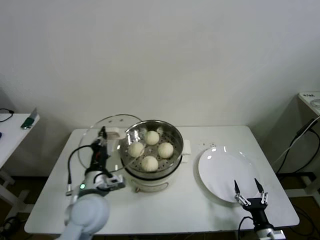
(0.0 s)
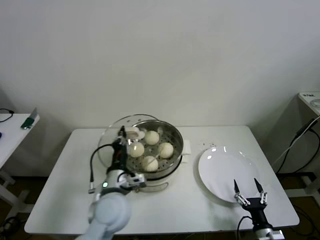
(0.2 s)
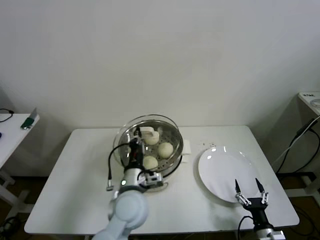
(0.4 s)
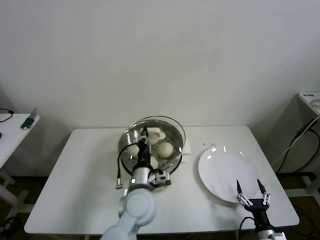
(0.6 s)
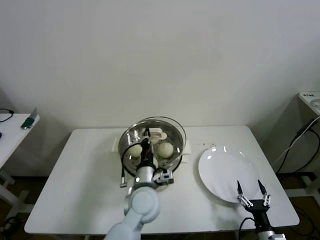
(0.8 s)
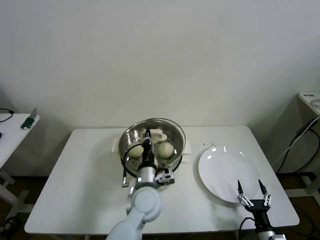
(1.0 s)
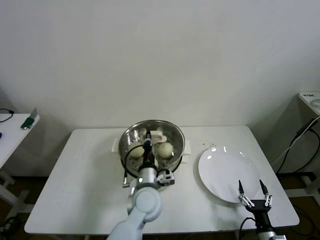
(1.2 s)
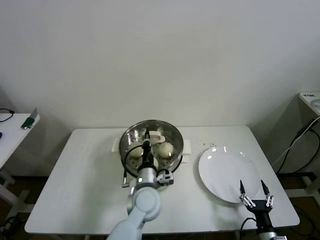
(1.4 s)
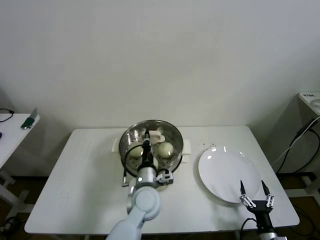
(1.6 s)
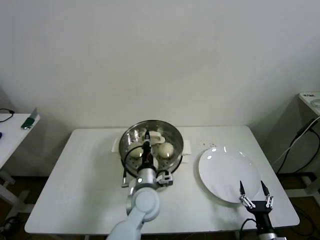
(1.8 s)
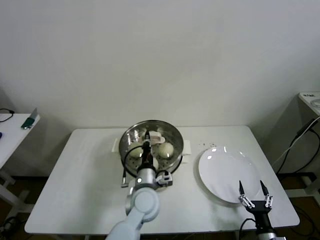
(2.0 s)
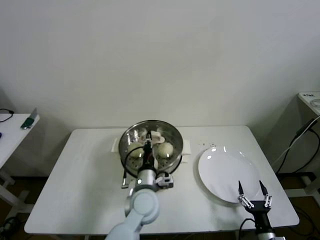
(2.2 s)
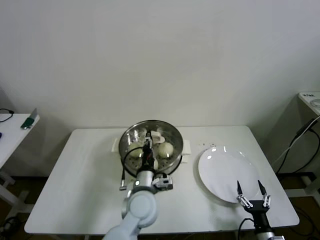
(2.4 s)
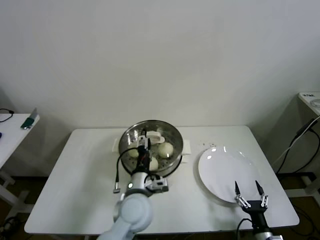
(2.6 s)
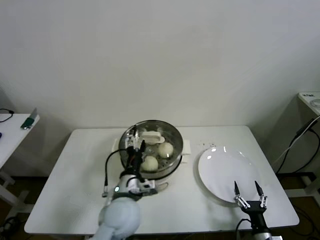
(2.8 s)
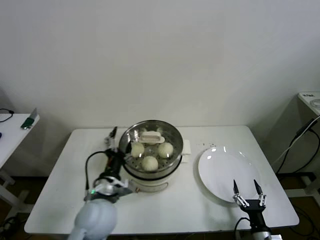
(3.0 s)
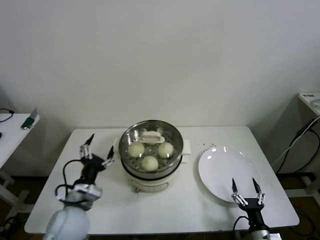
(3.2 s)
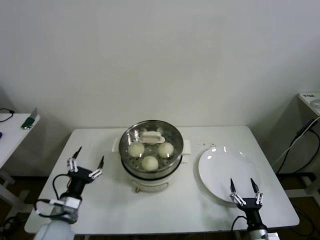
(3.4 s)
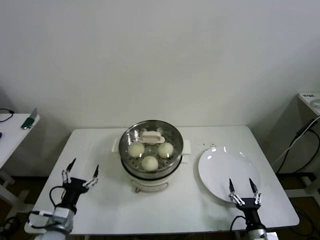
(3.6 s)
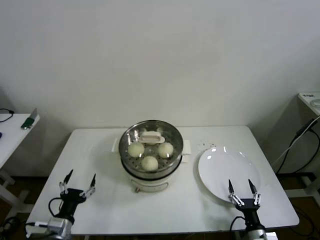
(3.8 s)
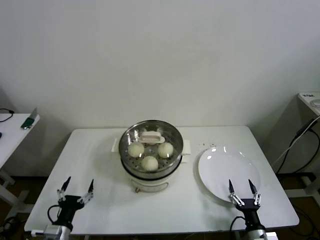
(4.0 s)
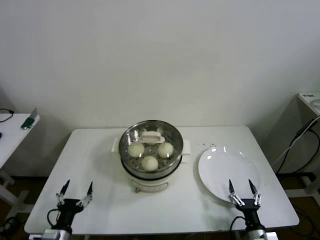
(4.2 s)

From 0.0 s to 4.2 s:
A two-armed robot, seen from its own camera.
Step, from 0.0 s to 2.2 s: Place the pot lid on the steamer with left gripper.
From 0.0 s to 1.4 s: The left gripper heads to the right, covering about 15 cm.
From 1.4 s to 2.8 s: The left gripper ends up about 10 cm from where it was, and opens up.
From 2.8 s to 4.2 s: The left gripper heads to the left, downward and backward, covering approximately 30 cm.

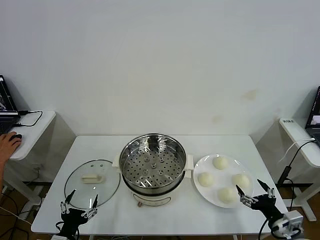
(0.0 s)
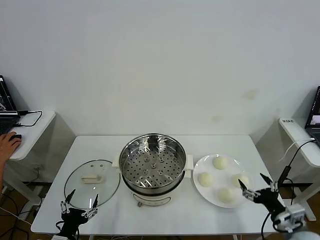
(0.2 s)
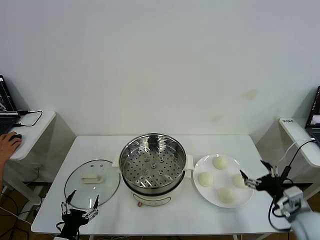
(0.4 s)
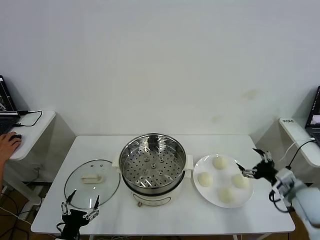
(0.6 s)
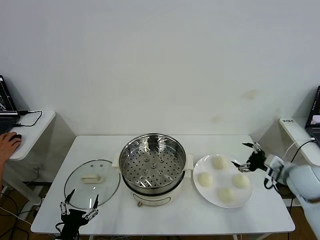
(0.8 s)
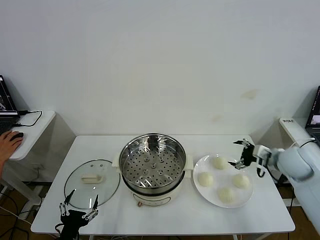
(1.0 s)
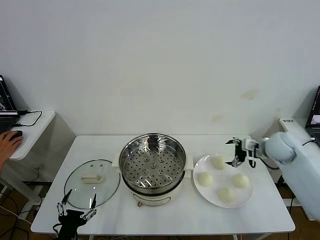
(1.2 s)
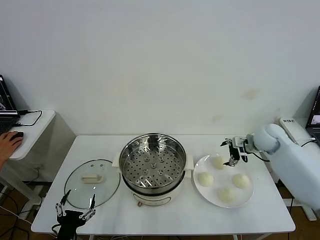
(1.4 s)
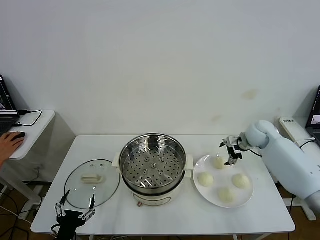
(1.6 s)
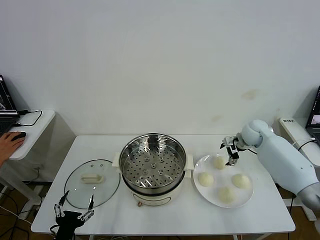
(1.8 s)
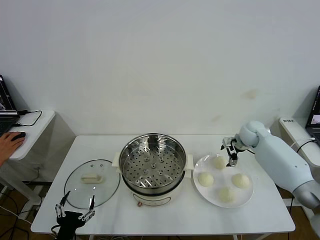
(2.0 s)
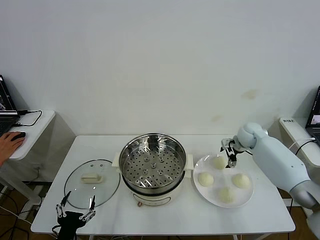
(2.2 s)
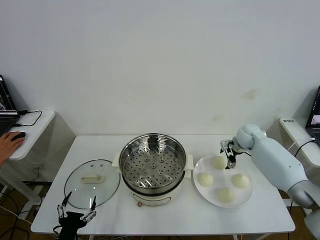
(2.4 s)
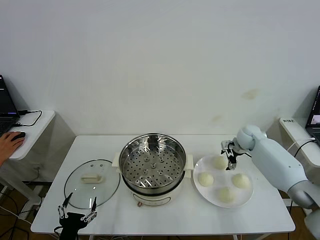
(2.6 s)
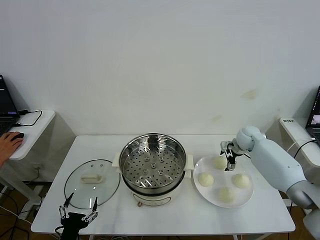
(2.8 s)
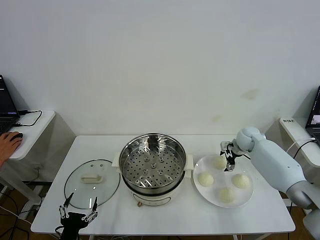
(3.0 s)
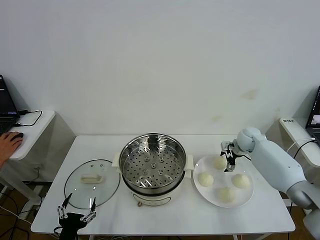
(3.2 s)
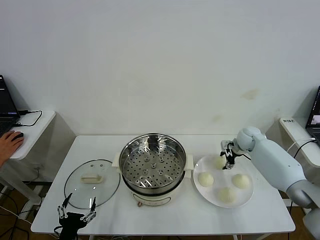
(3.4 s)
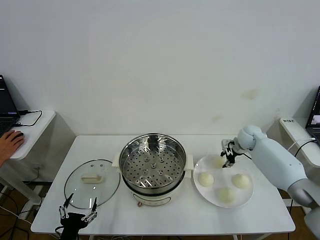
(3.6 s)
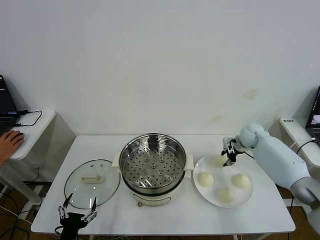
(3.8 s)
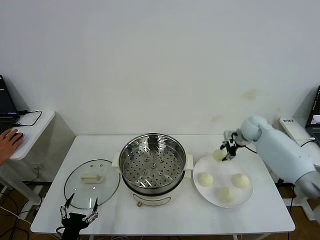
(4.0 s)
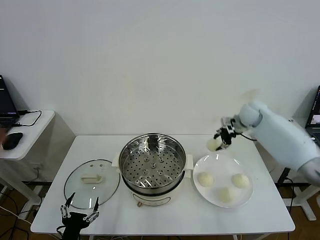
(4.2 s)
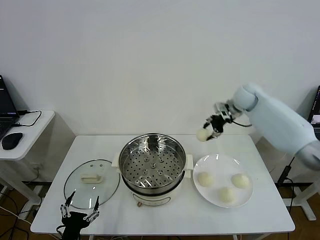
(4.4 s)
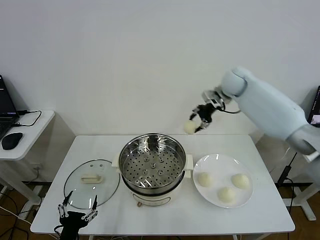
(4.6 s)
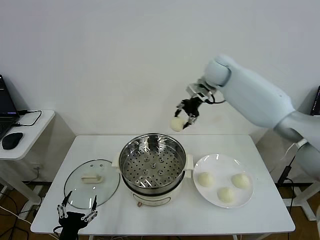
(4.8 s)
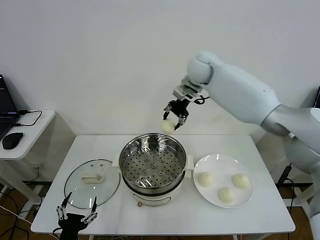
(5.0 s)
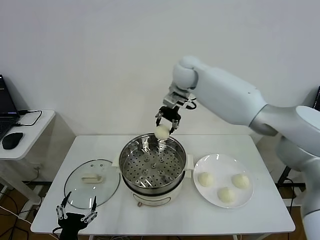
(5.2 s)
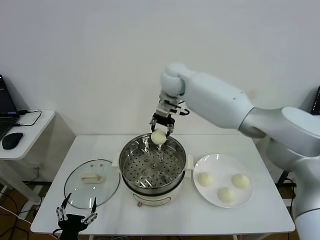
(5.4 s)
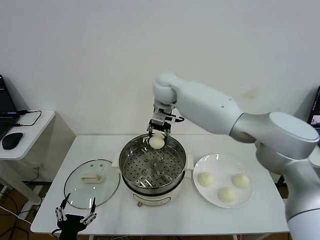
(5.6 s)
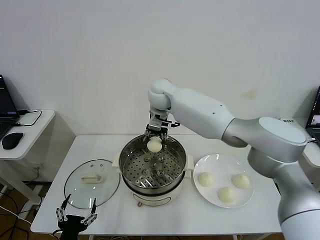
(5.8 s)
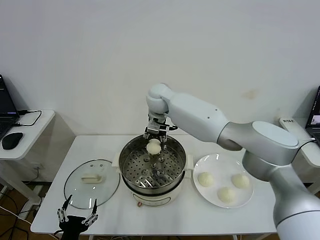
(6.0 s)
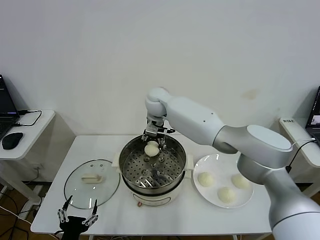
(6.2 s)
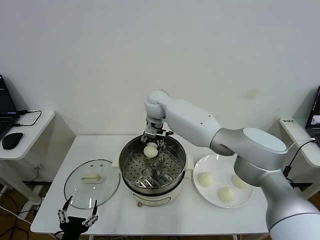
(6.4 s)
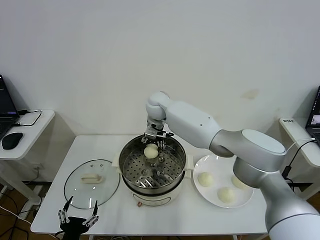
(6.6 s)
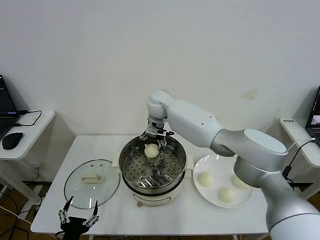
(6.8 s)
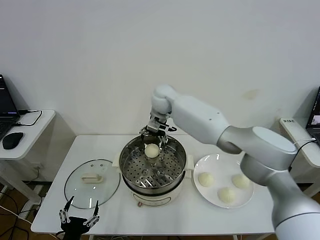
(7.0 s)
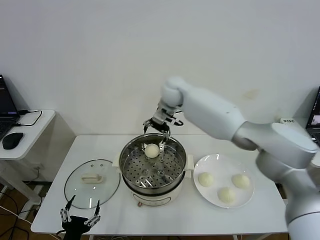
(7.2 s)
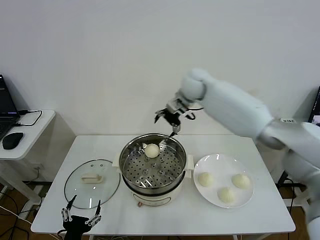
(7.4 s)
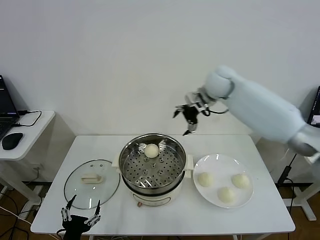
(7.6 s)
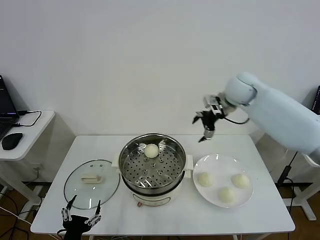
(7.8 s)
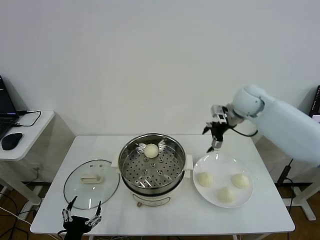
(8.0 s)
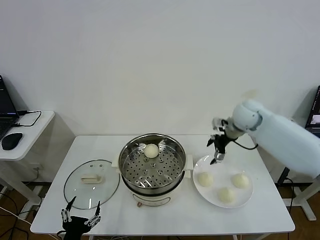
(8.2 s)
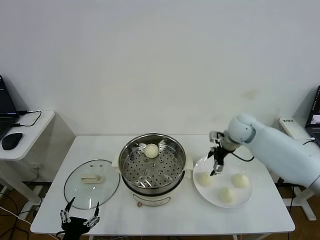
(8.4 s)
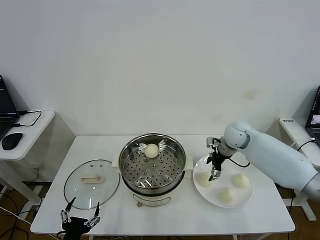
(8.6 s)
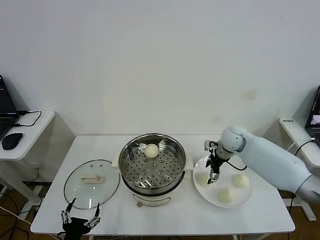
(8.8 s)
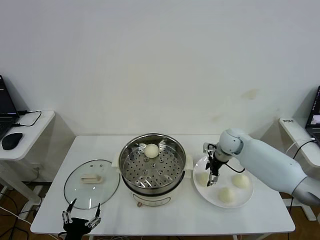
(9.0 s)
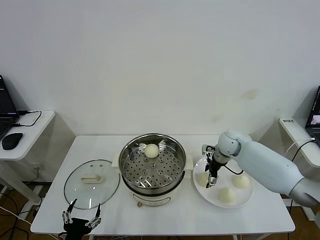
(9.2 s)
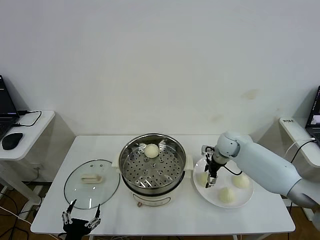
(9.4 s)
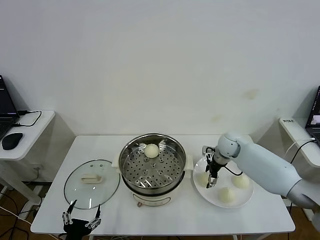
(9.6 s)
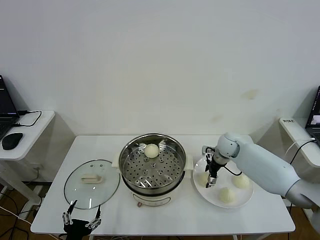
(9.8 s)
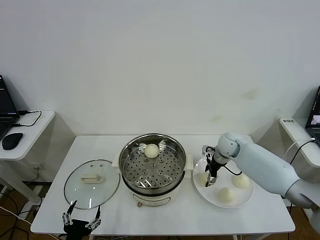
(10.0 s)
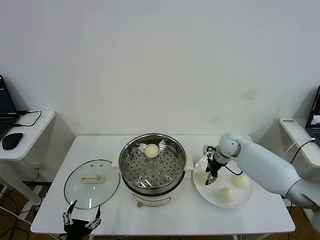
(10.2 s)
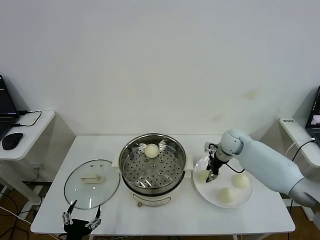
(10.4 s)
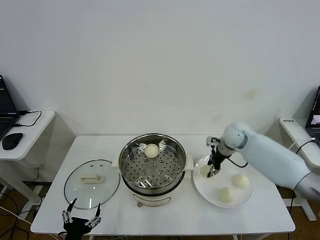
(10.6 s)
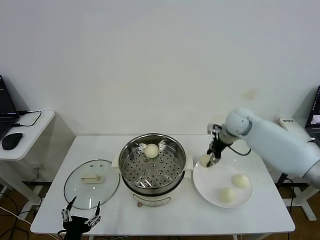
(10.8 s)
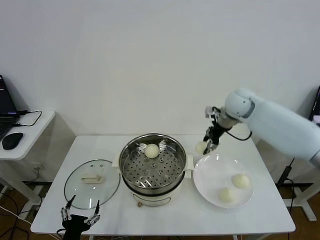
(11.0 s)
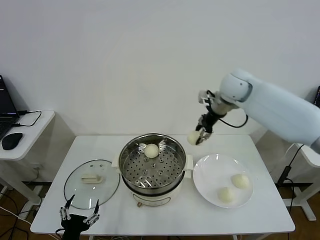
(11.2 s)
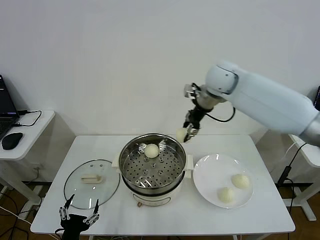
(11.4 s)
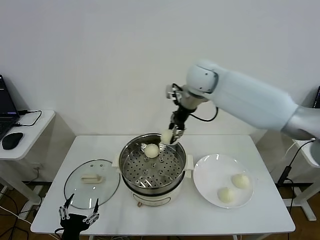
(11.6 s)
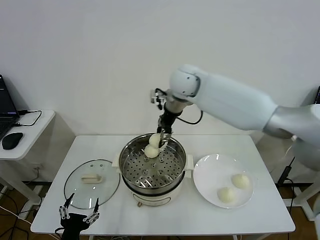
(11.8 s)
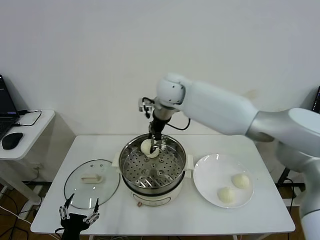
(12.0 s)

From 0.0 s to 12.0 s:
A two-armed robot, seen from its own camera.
Step, from 0.0 s to 3.6 s: Grasp the baozi in the plate with right gripper.
Step, from 3.8 s to 6.8 s: Place the baozi on the steamer with right gripper.
Step, from 7.0 s to 10.0 s: Grasp the baozi in the plate with right gripper.
From 1.6 s to 3.0 s: The right gripper travels downward by roughly 5 cm.
From 3.0 s to 4.4 s: The right gripper travels upward and to the left by about 25 cm, and closes.
From 4.4 s to 6.0 s: The right gripper moves to the left, about 30 cm.
From 6.0 s to 7.6 s: The right gripper shifts some 25 cm to the right, and opens.
From 7.6 s to 9.0 s: The right gripper travels downward by approximately 20 cm.
From 9.0 s to 10.4 s: The right gripper closes its fingers.
From 10.4 s to 12.0 s: The right gripper shifts roughly 35 cm to the left and upward.

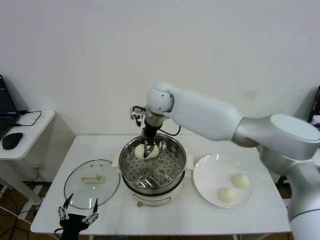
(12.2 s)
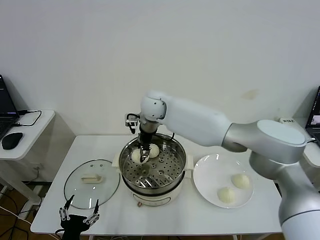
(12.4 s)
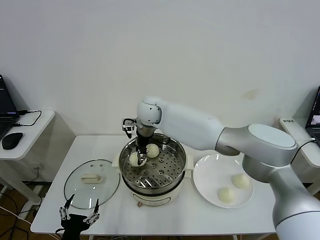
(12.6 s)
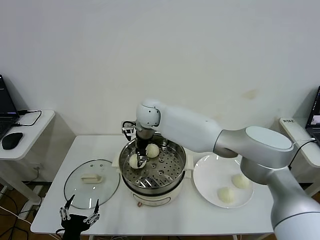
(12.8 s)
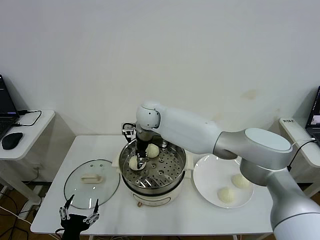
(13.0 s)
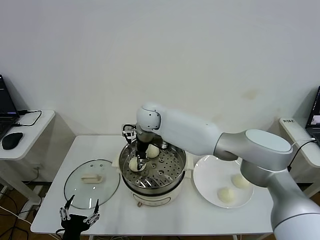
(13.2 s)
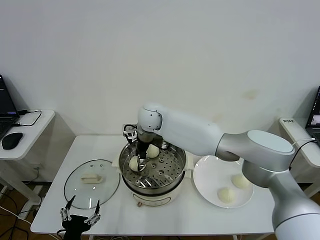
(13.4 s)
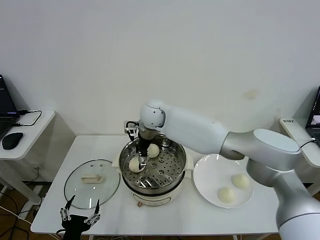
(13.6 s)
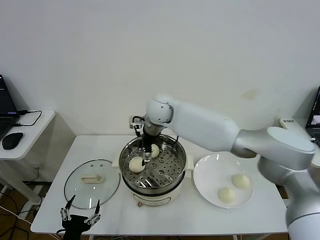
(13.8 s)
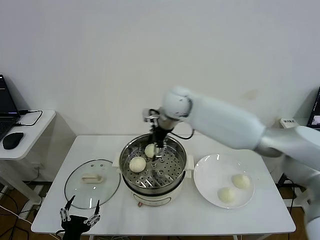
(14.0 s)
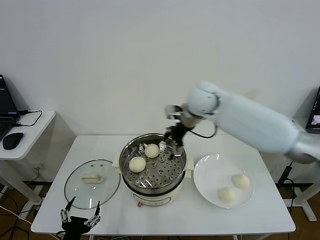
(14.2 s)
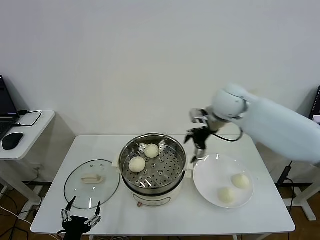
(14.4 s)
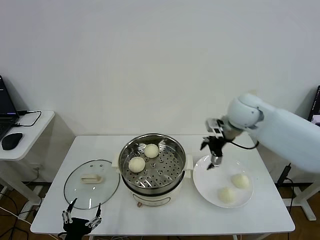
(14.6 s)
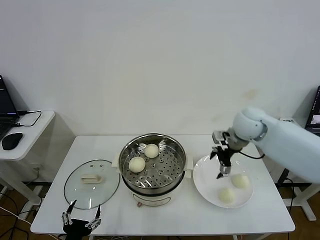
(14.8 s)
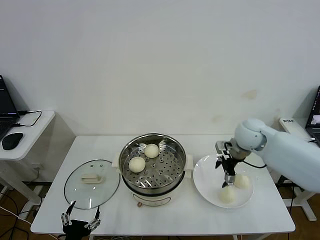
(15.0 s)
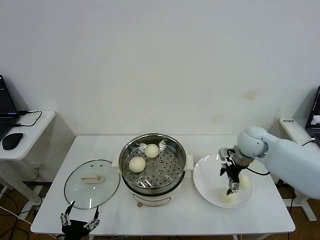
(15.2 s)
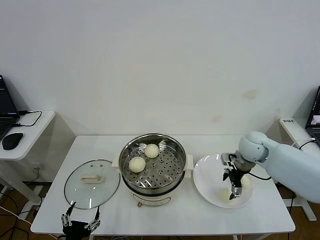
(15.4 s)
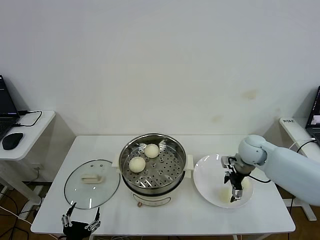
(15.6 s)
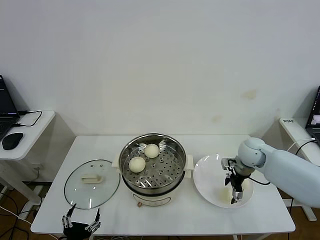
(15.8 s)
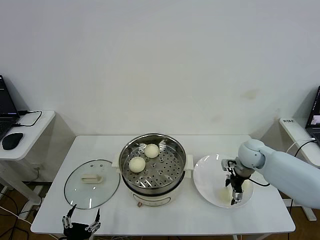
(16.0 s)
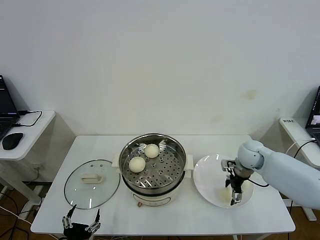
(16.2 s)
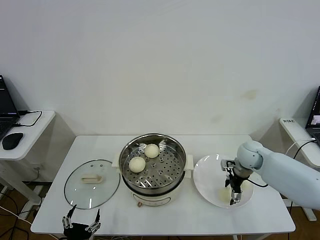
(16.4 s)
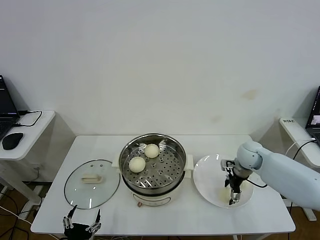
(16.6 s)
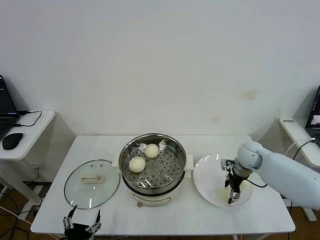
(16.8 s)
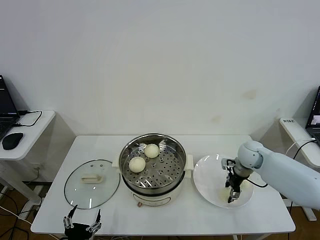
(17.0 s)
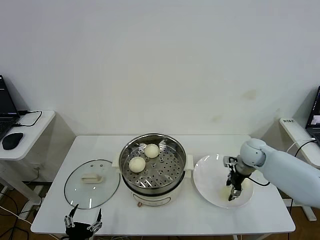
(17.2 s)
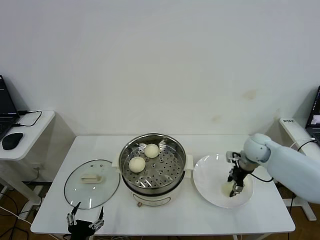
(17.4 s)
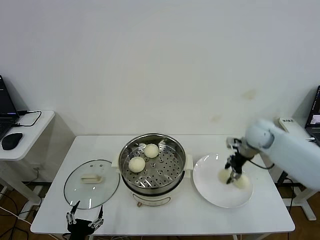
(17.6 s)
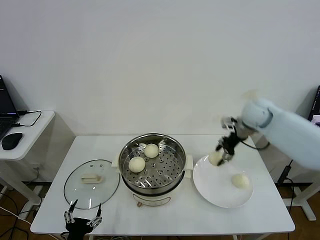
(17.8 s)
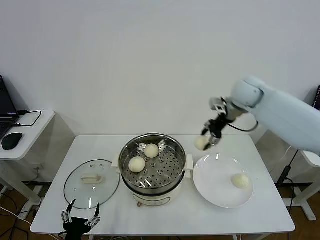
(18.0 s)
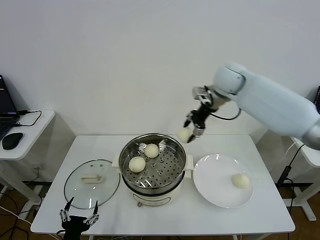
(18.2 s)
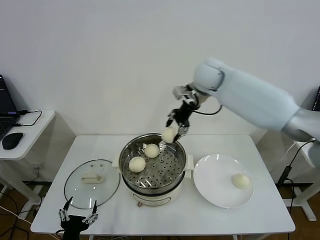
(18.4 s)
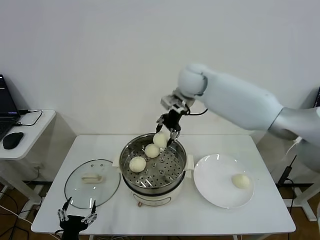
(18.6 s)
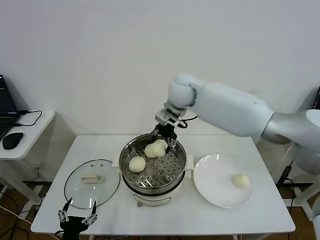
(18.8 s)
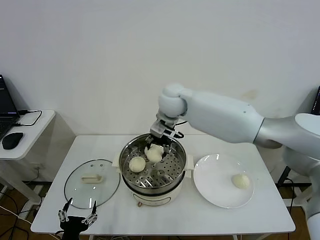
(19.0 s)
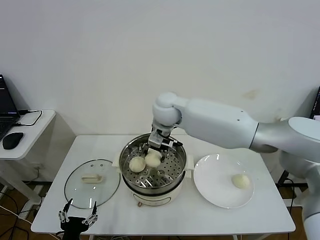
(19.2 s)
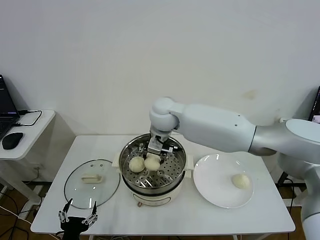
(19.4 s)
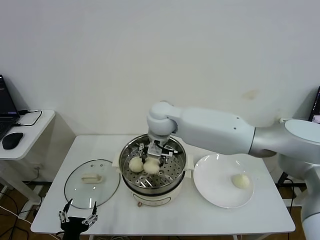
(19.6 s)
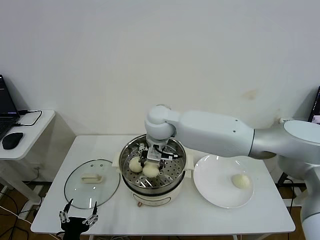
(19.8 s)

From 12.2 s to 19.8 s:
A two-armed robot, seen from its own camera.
Step, from 13.8 s to 16.8 s: Grasp the baozi in the plate with right gripper.
From 12.2 s to 13.8 s: The right gripper opens up.
From 13.8 s to 15.2 s: The right gripper goes some 30 cm to the right.
From 15.2 s to 16.8 s: The right gripper is displaced downward by roughly 10 cm.
From 16.8 s to 18.2 s: The right gripper heads upward and to the left, covering approximately 30 cm, and closes its fingers.
From 18.2 s to 19.8 s: The right gripper shifts approximately 25 cm to the left, backward and downward.
